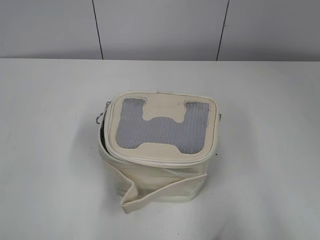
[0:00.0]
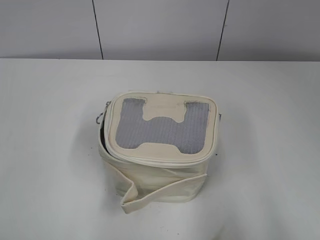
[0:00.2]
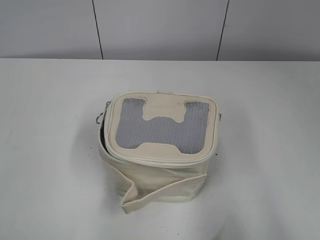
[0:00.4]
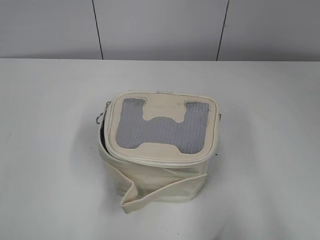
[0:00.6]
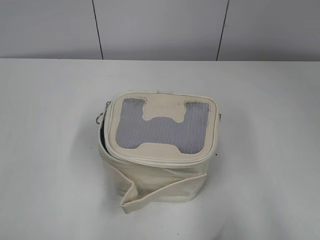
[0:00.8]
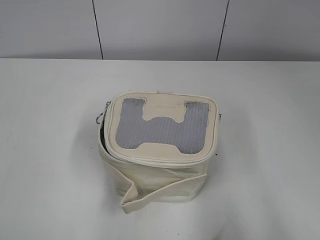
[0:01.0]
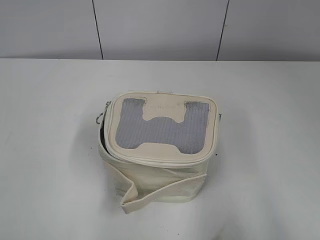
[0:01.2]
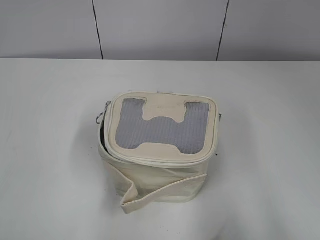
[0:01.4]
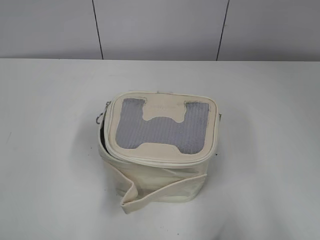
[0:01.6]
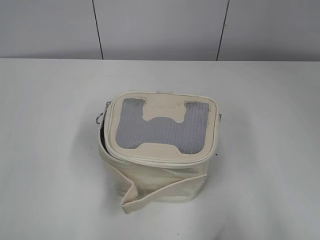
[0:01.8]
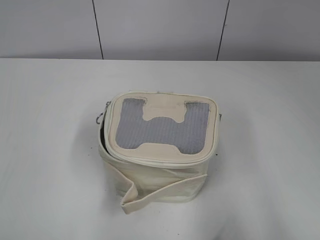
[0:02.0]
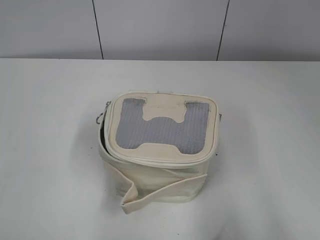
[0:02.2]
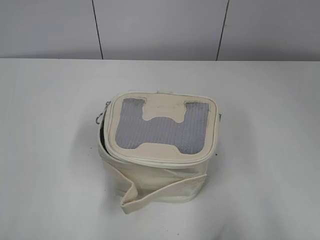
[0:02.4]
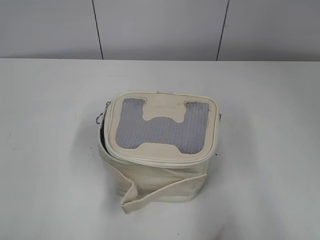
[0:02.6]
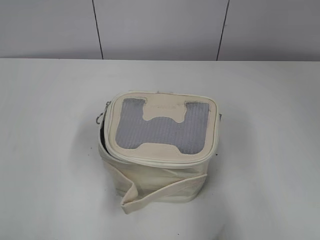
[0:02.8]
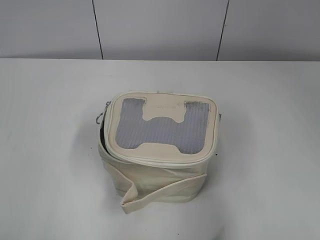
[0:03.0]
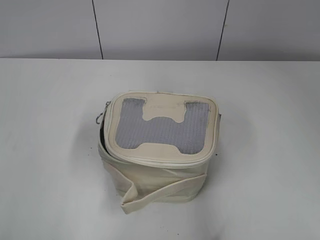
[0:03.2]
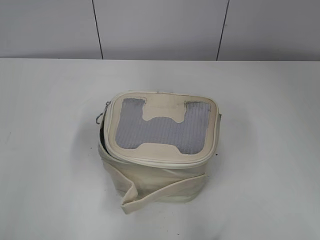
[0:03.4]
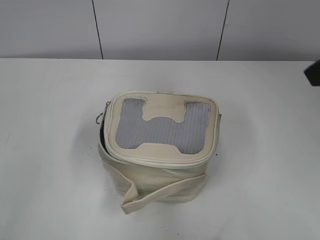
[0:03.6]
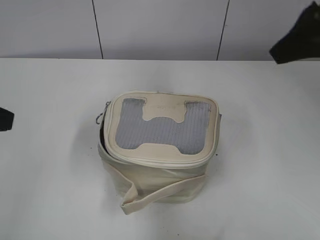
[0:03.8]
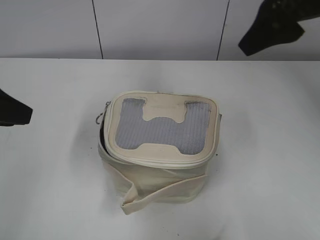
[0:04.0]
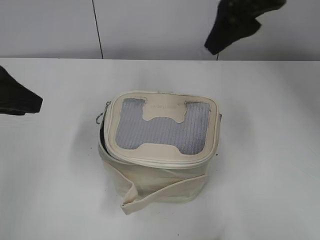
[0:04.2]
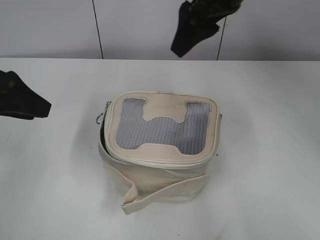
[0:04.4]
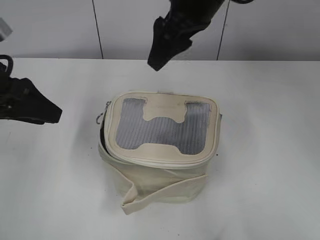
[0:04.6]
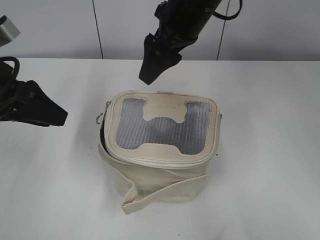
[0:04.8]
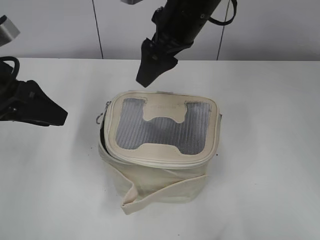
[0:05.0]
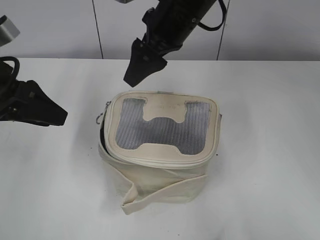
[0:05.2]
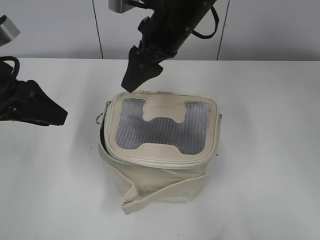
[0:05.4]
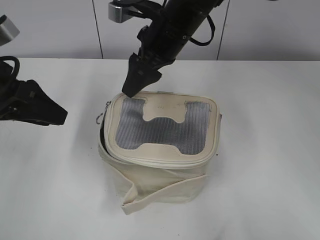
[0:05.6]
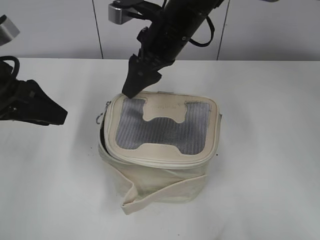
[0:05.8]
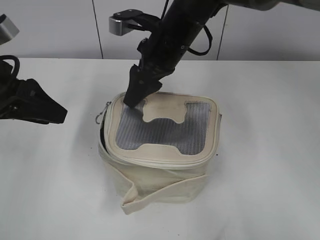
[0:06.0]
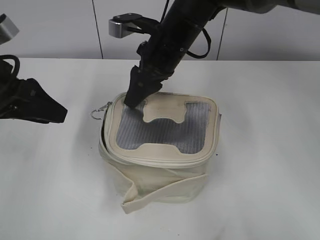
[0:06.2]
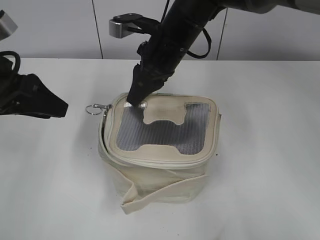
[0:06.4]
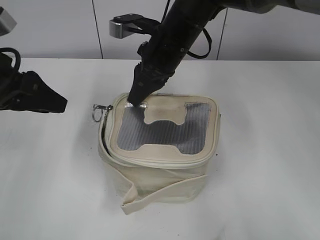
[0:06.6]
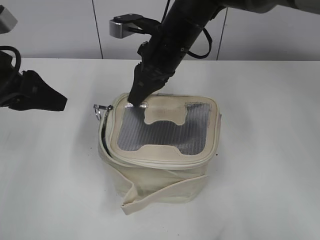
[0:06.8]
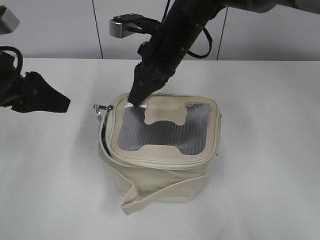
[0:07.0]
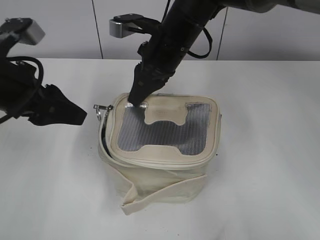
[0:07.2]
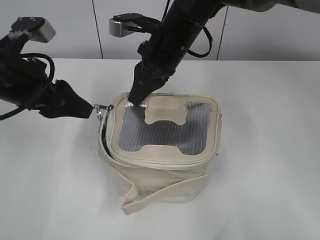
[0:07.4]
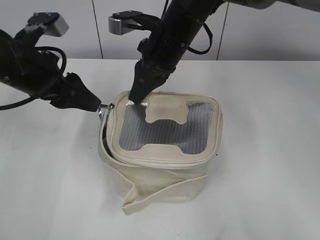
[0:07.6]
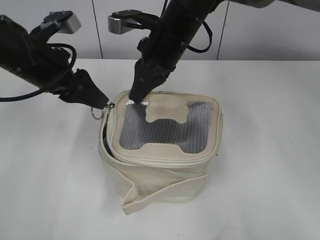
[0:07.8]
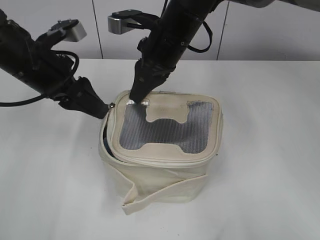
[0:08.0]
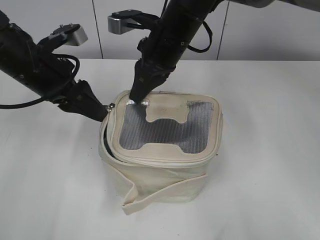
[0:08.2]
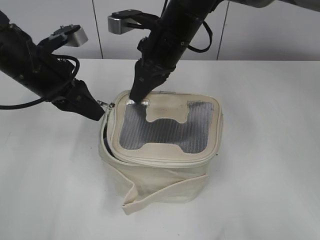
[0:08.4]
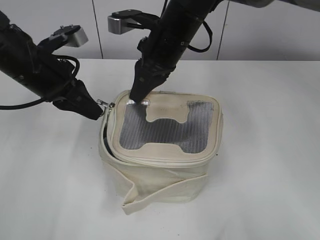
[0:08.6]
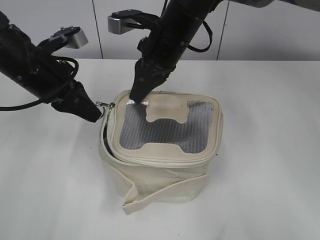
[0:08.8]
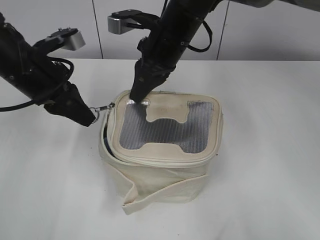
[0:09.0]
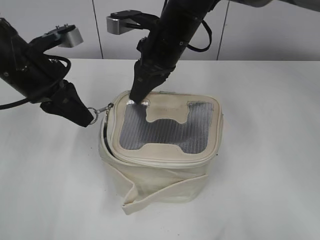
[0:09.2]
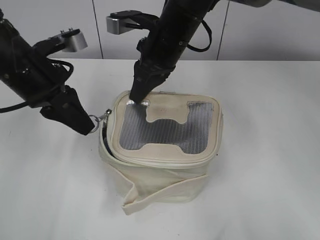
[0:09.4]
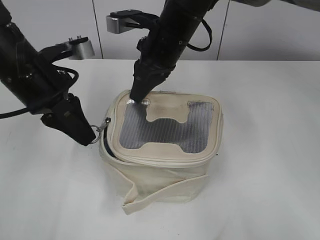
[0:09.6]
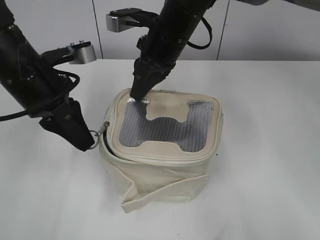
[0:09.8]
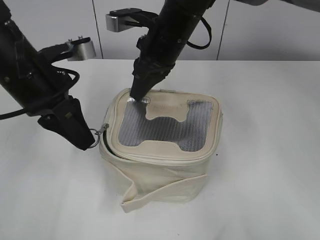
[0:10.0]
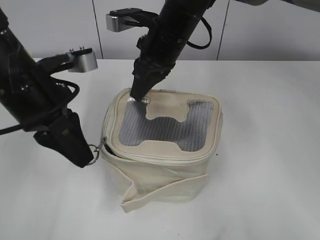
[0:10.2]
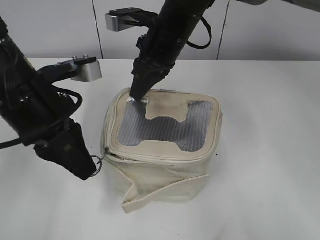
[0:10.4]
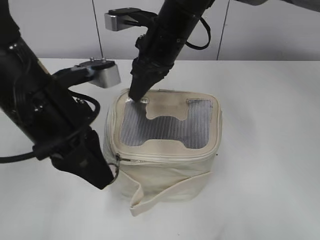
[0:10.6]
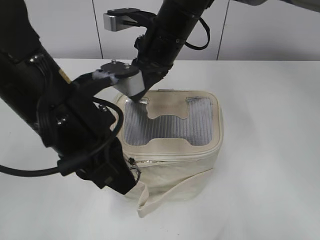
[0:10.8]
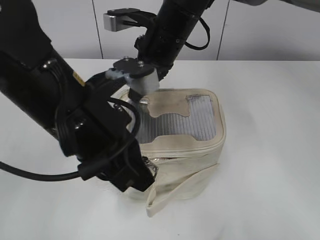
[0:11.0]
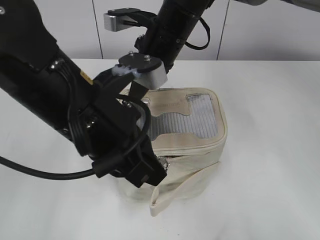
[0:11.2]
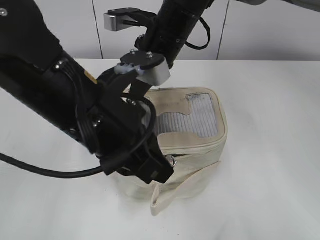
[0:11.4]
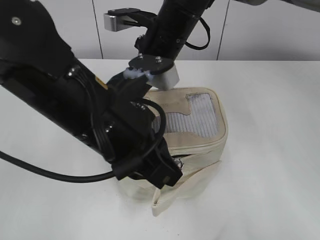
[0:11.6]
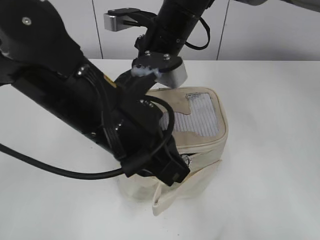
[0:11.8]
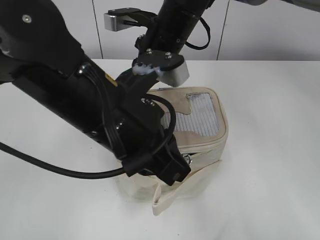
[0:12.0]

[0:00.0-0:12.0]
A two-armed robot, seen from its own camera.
0:01.6 to 0:03.0: The right gripper moves forward, some 5 cm.
0:03.0 to 0:04.4: The right gripper heads forward and to the left, covering roughly 35 cm; the left gripper moves forward, approximately 20 cm.
0:04.4 to 0:06.0: The right gripper heads downward and to the left, covering roughly 15 cm.
0:06.0 to 0:07.6: The left gripper shifts by about 5 cm. Meanwhile the right gripper closes its fingers.
0:07.6 to 0:09.0: The left gripper closes its fingers.
0:09.0 to 0:10.4: The left gripper moves backward, about 10 cm.
0:10.4 to 0:12.0: The left gripper is displaced to the right by about 10 cm.

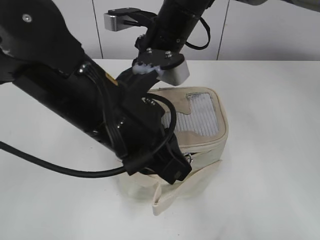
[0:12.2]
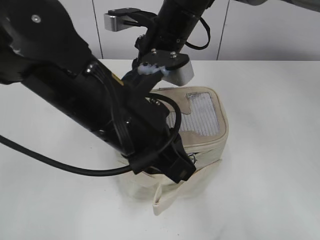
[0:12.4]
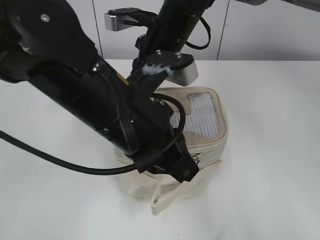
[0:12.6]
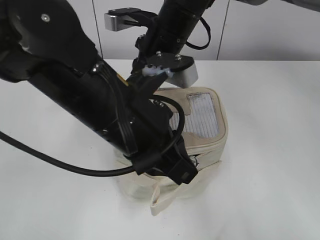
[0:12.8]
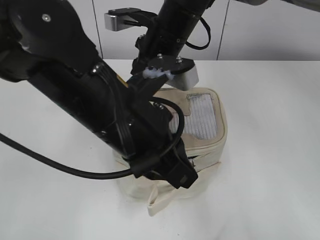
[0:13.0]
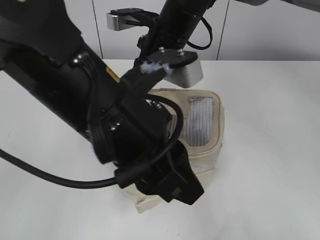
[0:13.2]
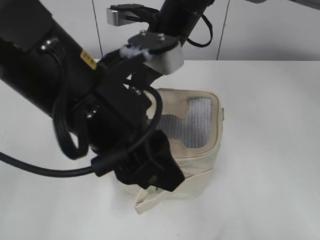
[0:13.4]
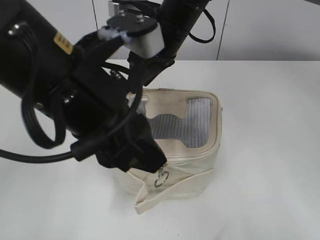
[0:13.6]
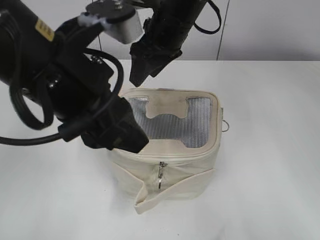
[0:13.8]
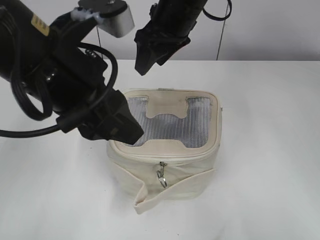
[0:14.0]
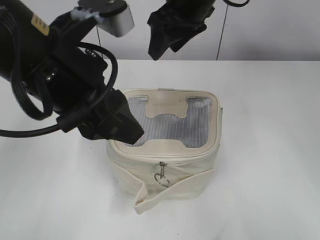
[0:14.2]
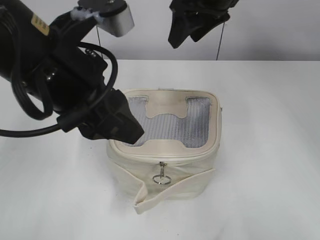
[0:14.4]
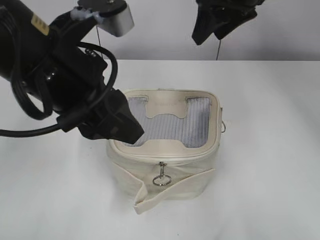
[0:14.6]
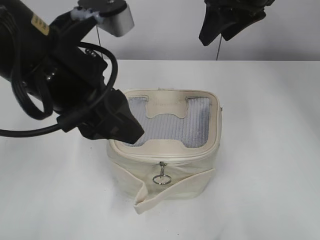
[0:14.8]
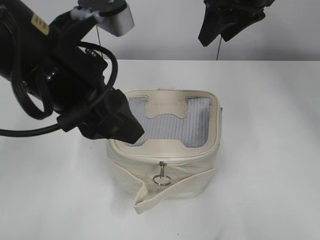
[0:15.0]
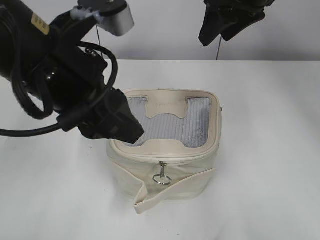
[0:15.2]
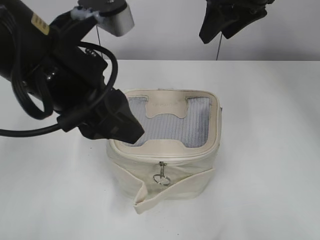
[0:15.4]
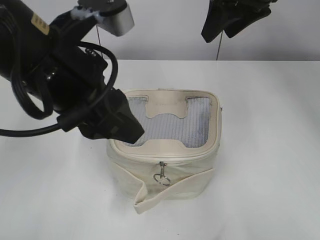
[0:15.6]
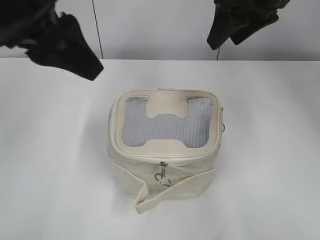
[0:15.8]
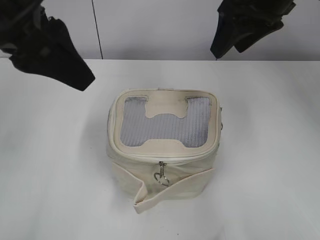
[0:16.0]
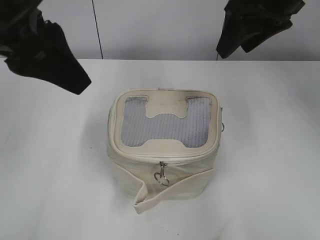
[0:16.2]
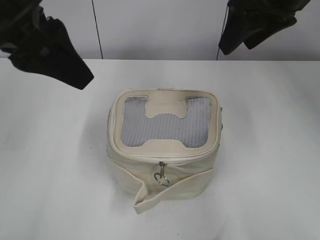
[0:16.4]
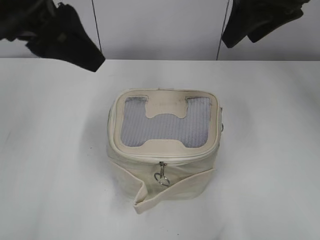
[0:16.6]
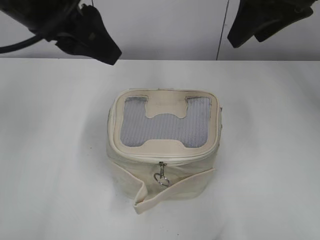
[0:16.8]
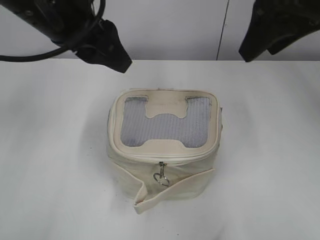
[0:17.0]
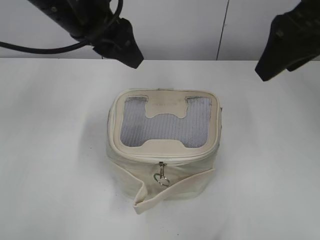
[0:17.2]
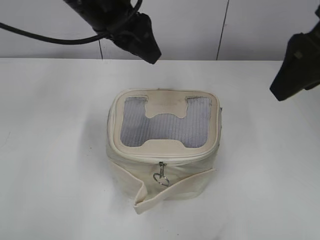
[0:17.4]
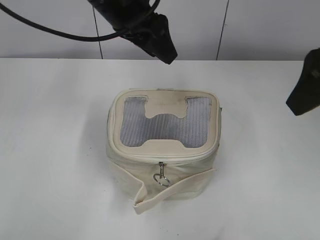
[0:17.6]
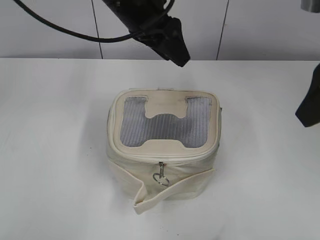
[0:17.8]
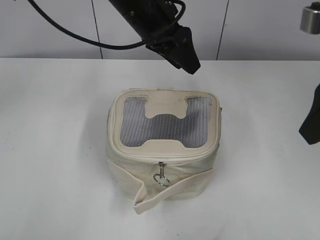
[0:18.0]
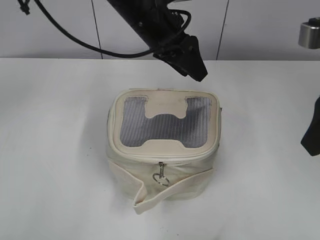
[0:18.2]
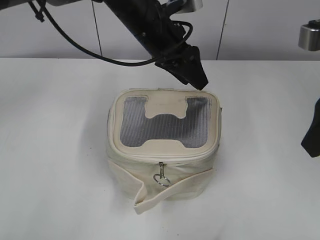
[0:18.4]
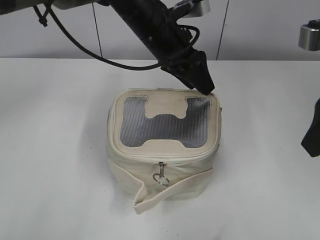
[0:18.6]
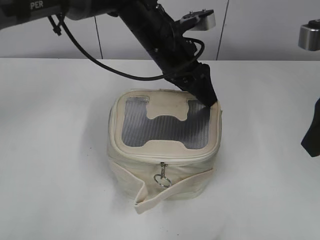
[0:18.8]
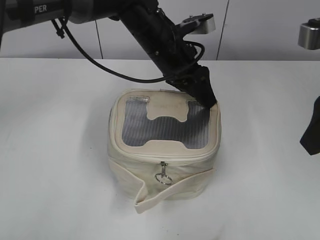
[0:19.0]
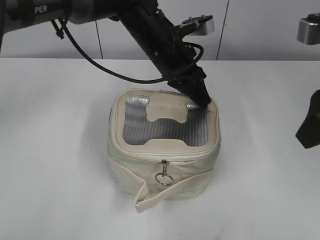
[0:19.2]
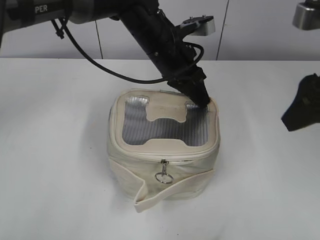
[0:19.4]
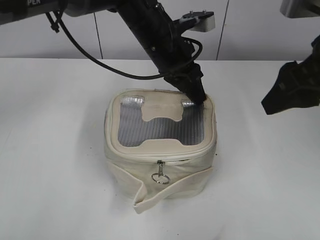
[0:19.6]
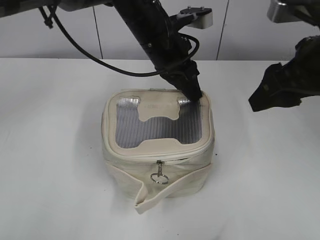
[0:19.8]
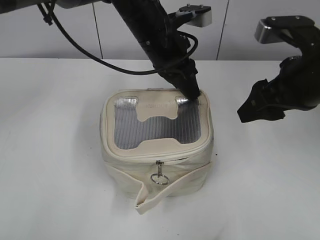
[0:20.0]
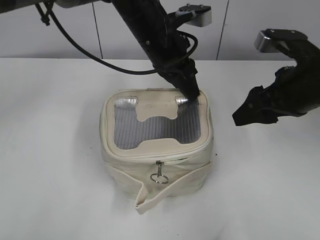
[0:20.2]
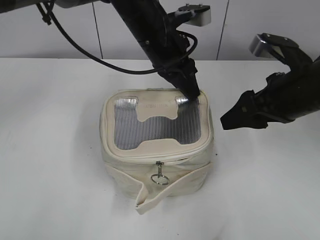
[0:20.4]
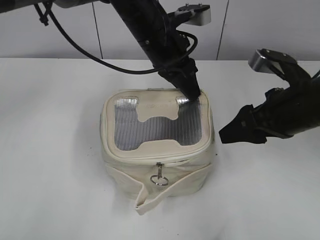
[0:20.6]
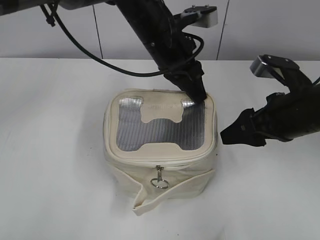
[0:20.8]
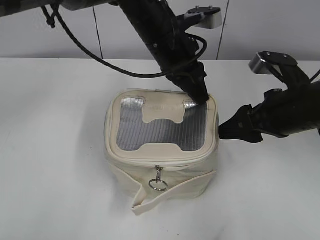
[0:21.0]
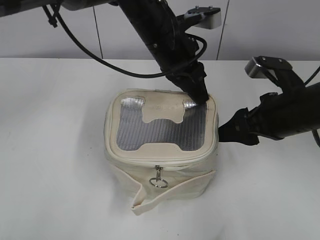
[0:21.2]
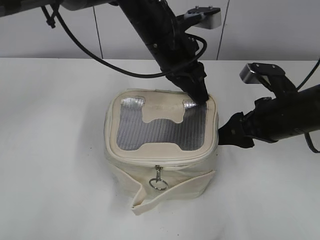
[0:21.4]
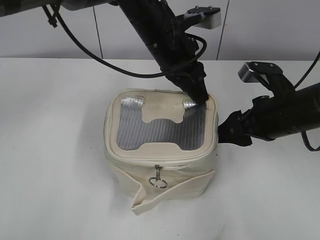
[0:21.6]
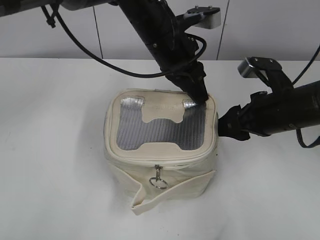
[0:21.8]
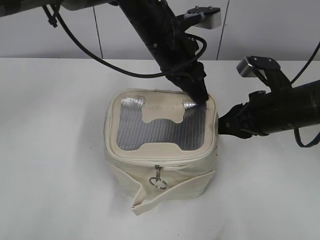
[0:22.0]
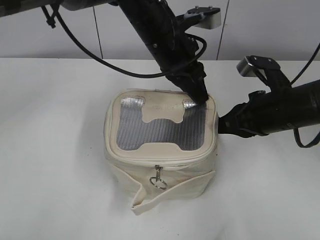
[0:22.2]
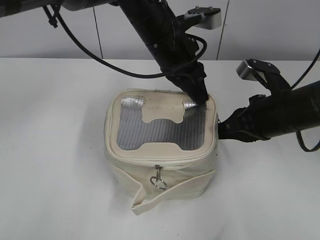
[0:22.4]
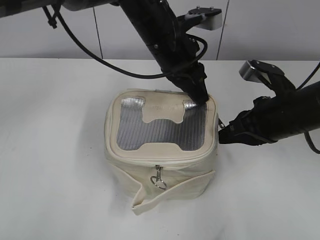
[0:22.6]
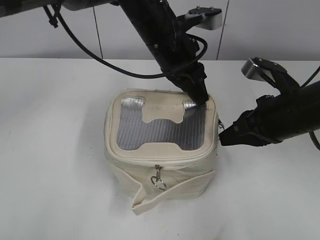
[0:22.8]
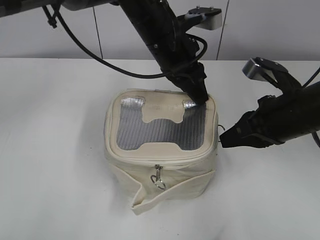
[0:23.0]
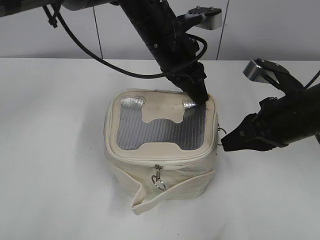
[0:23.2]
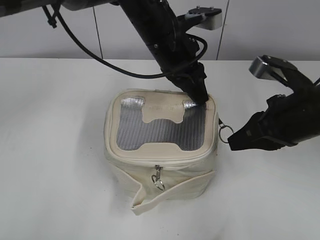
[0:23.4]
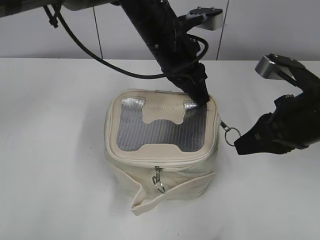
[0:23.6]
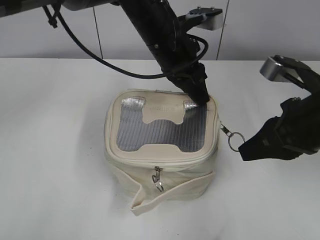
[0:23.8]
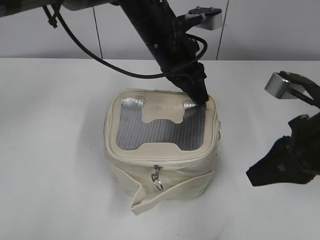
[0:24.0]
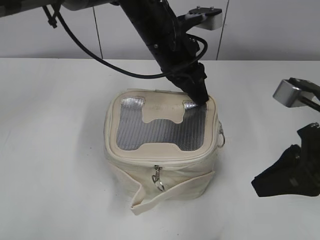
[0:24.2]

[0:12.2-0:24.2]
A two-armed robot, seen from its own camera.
0:12.2 to 0:13.8: The right gripper opens up, while the left gripper ends up approximately 5 cm from where it was, and opens its fingers.
0:13.8 to 0:15.2: The right gripper travels to the right and upward by approximately 15 cm.
0:15.2 to 0:16.6: The left gripper goes approximately 5 cm upward. The right gripper heads backward, covering roughly 5 cm.
0:16.6 to 0:18.2: The right gripper moves backward and to the right, roughly 15 cm. Meanwhile the left gripper heads forward, to the right and downward, covering some 20 cm.
0:18.2 to 0:19.8: The right gripper shifts by some 5 cm, while the left gripper closes its fingers.
0:19.8 to 0:21.2: The right gripper is displaced downward by about 10 cm.
0:21.2 to 0:22.6: The right gripper closes its fingers.
0:22.6 to 0:24.2: The right gripper shifts about 10 cm backward and upward.
